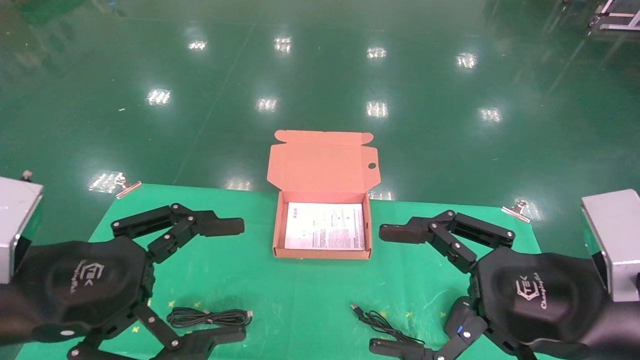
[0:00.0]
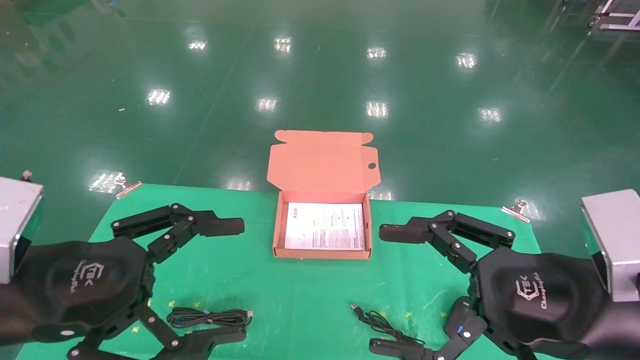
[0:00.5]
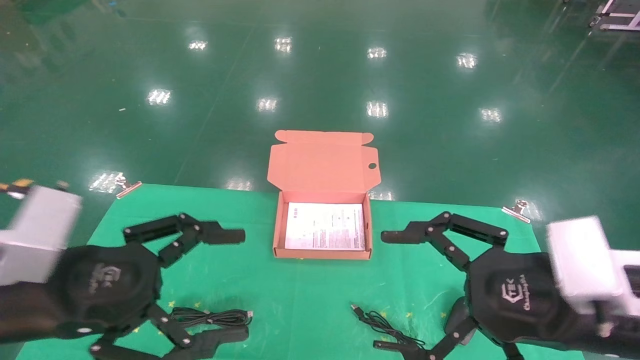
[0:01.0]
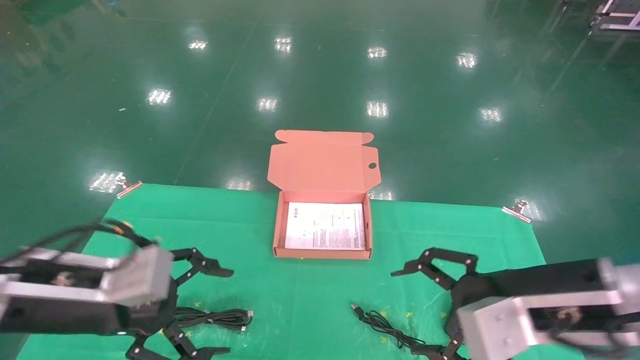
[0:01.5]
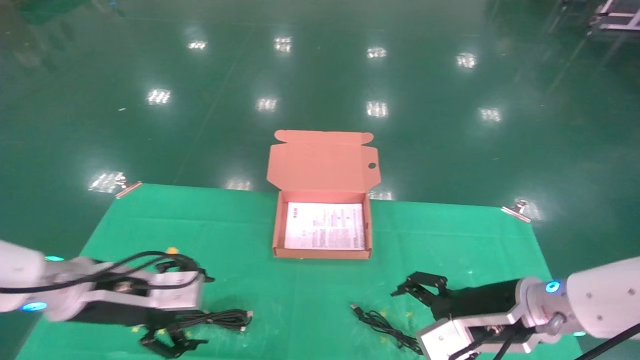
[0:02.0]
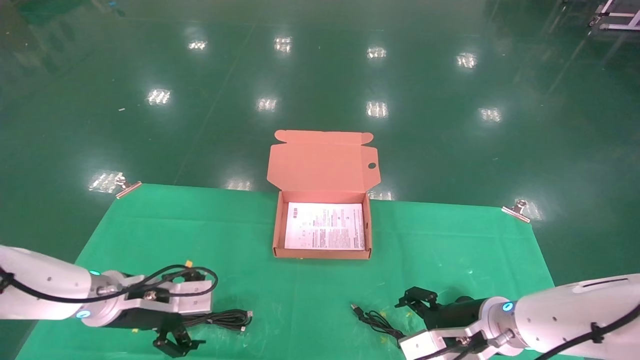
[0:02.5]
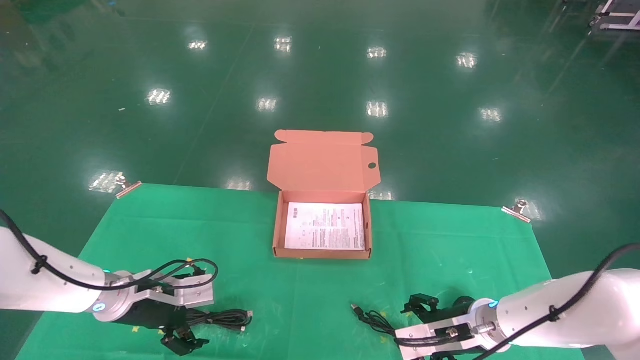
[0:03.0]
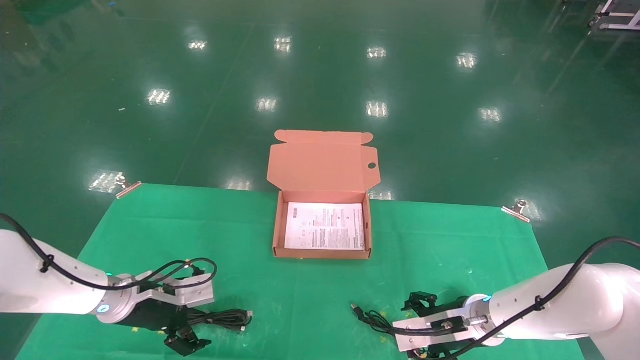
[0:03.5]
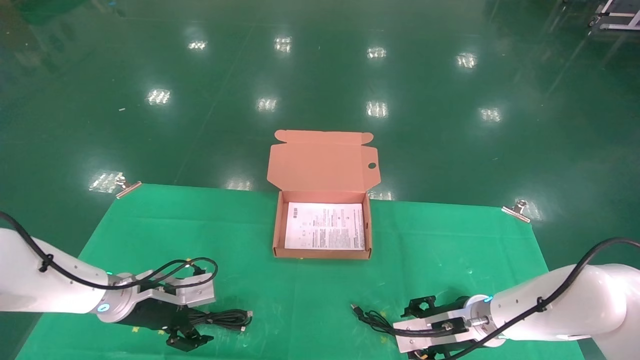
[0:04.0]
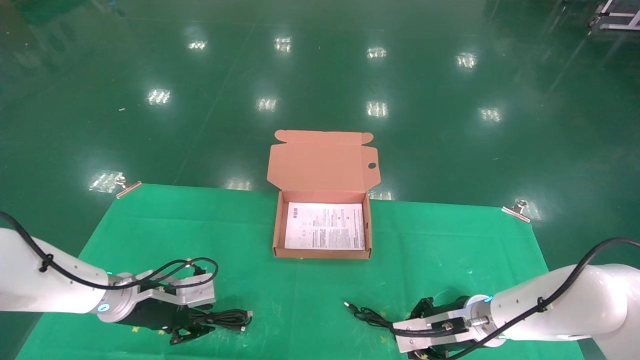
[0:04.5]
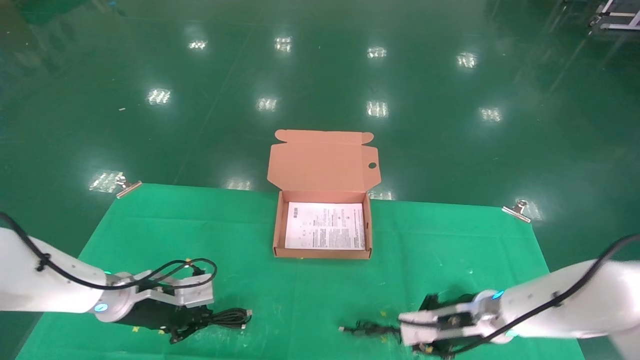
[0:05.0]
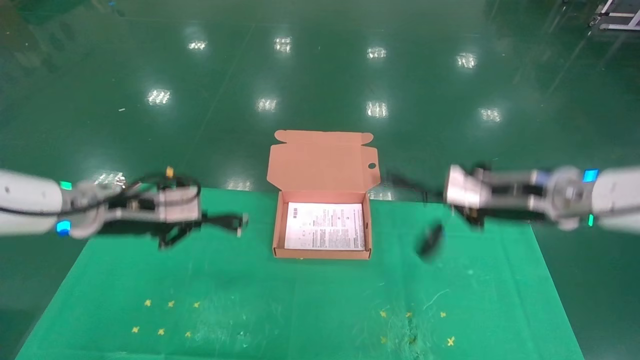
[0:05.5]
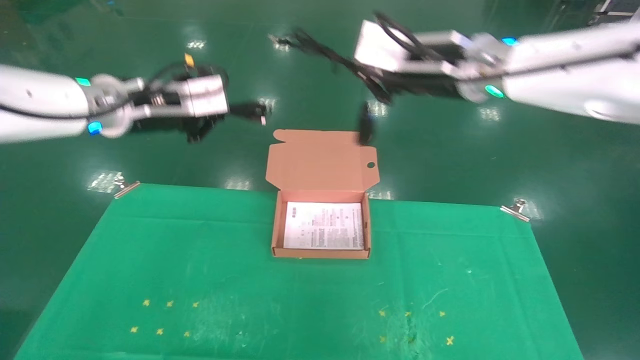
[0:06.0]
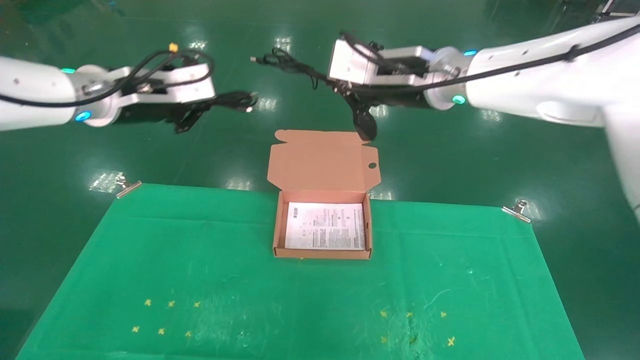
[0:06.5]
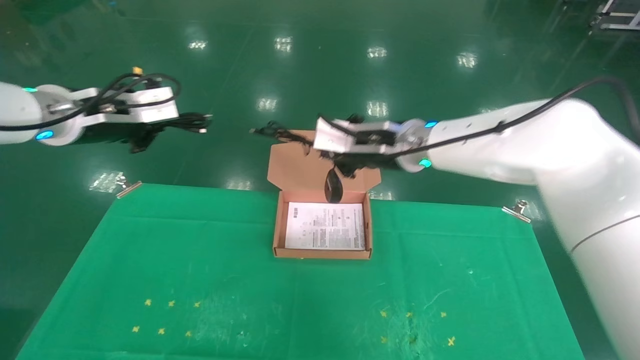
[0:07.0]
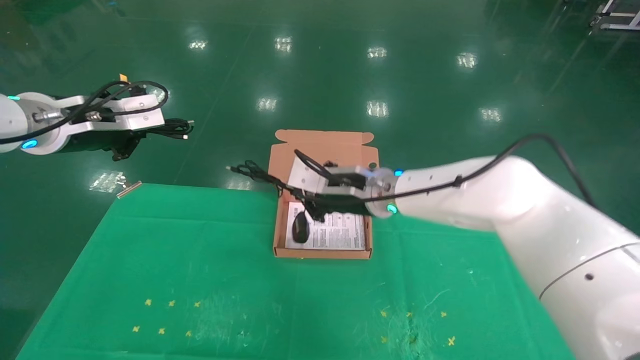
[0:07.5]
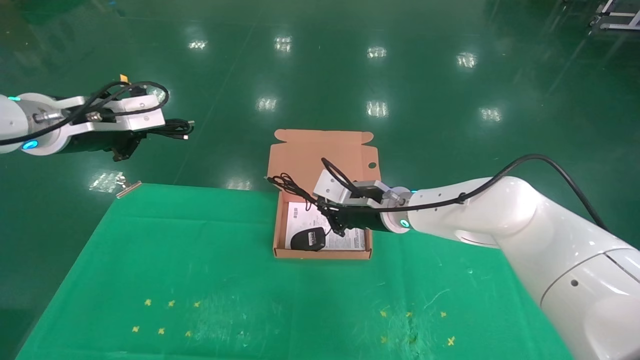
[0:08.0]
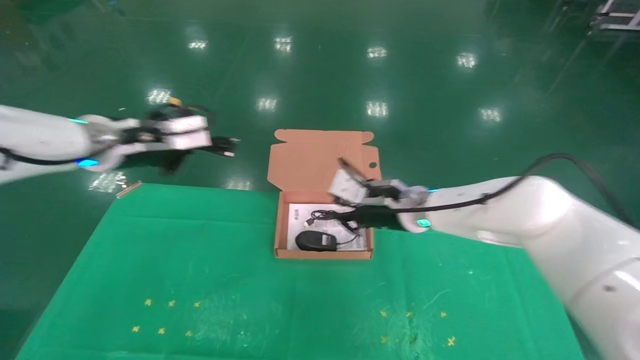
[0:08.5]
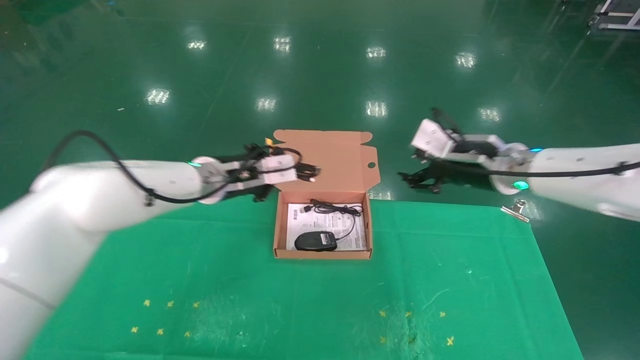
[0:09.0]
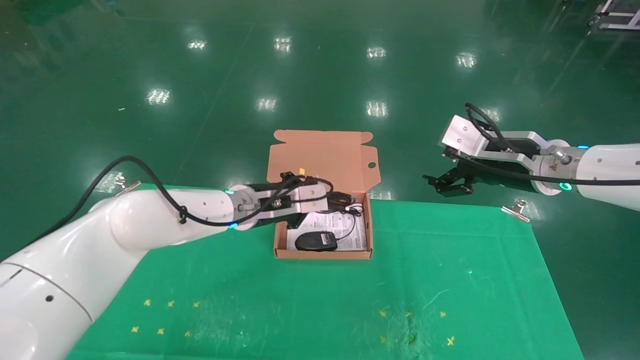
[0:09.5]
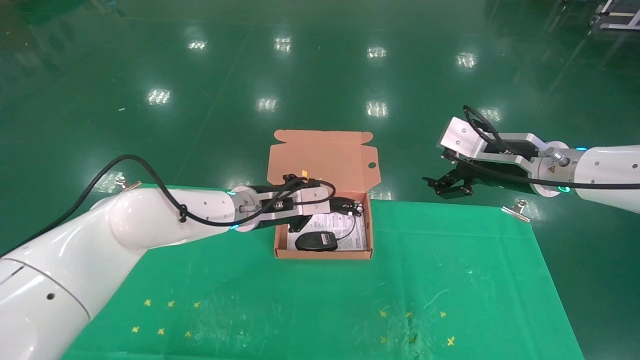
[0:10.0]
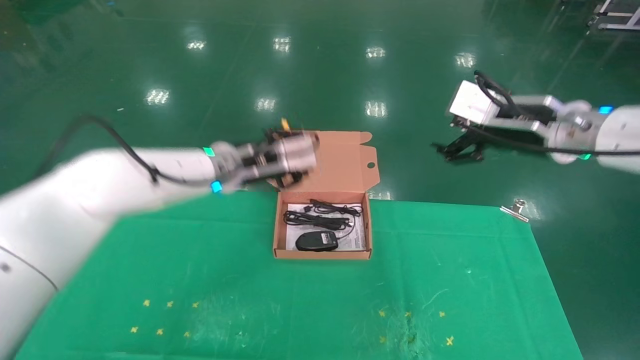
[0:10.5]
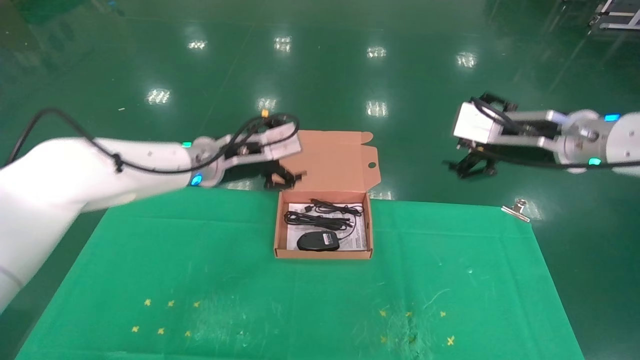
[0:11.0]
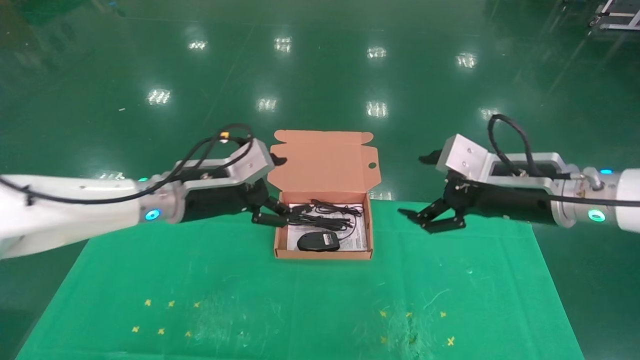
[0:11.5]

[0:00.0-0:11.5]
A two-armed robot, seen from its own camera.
Task of the whole recording: grasp data cable left put into box grasp mouse right put into box.
Step, 0:01.5 to 0:05.0: Grab and pick up both the mouse and power cord from the accessory packaging area at the same time.
Step, 0:05.5 to 0:10.5: Place the mouse and power cord into the box.
0:00.0 to 0:02.0: Both grippers travel together forward and downward, approximately 15 cm.
0:02.0 to 0:04.0: The left gripper heads forward and downward, covering some 10 cm, while the right gripper is displaced downward and forward by roughly 10 cm.
0:04.0 to 0:06.0: Both grippers travel together upward, about 30 cm. The right gripper closes up. The left gripper closes its fingers.
0:06.0 to 0:07.5: The right gripper shifts about 20 cm downward and to the left. The left gripper shifts roughly 5 cm to the left.
0:07.5 to 0:09.5: The left gripper goes some 25 cm to the right, downward and forward. Meanwhile the right gripper travels to the right by roughly 20 cm, and opens up.
0:09.5 to 0:11.5: The right gripper goes some 5 cm backward. Meanwhile the left gripper is displaced to the left and backward by about 10 cm, and opens up.

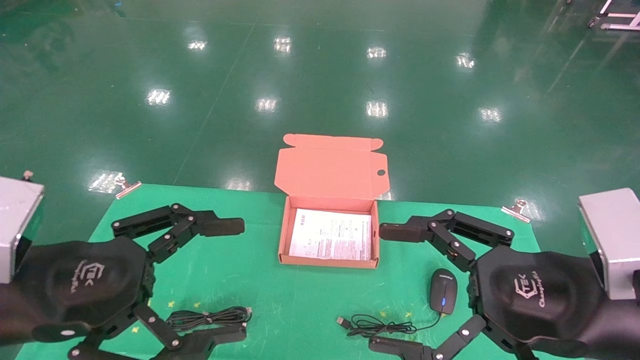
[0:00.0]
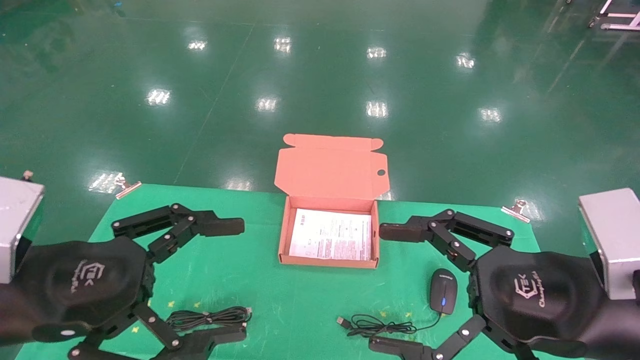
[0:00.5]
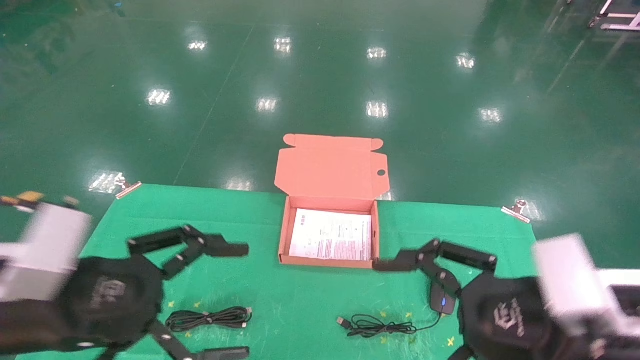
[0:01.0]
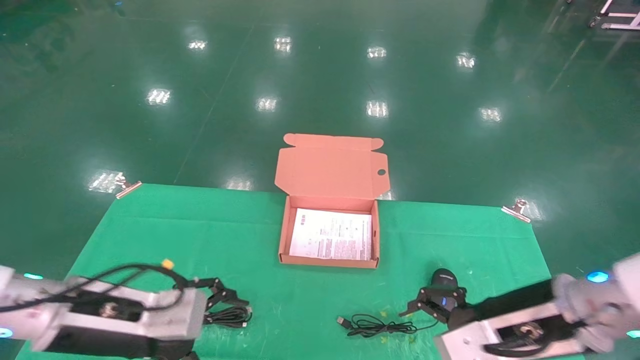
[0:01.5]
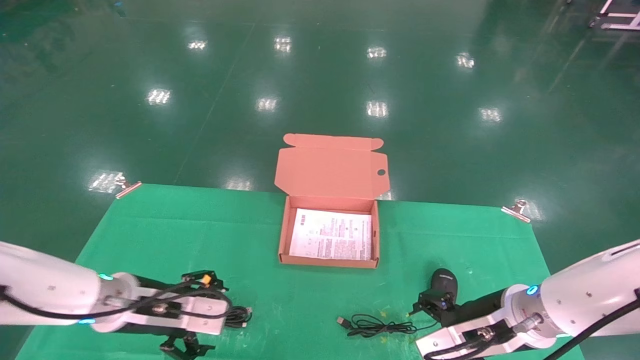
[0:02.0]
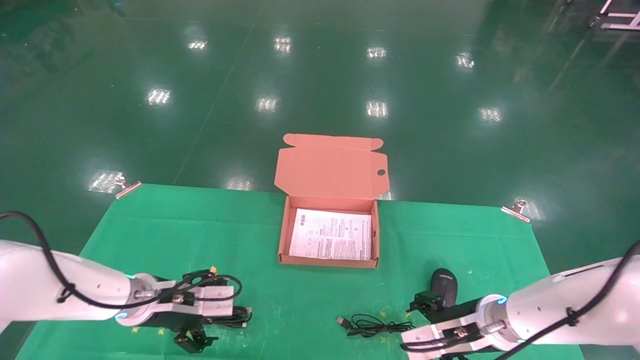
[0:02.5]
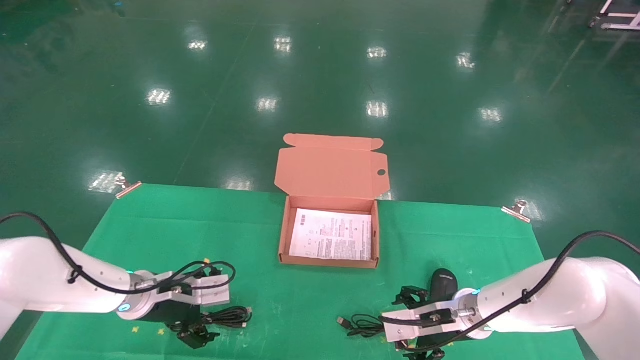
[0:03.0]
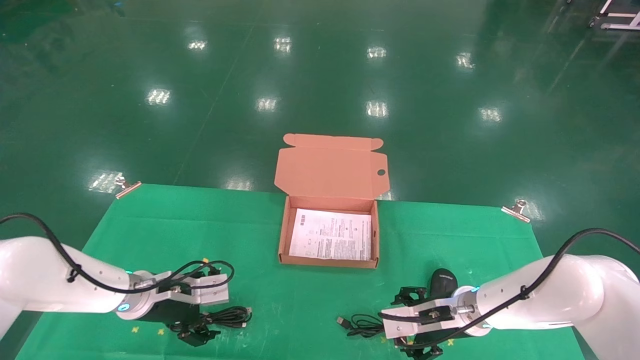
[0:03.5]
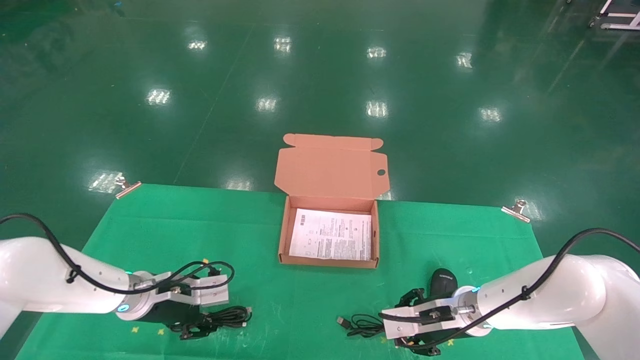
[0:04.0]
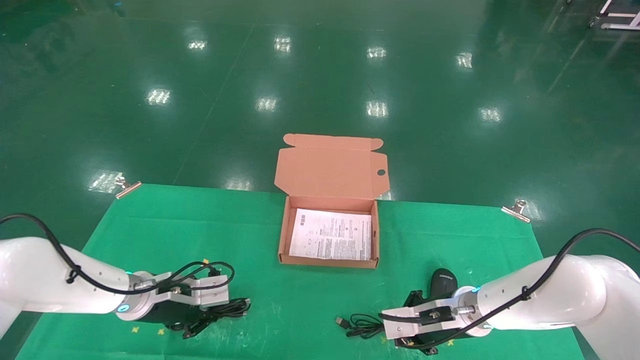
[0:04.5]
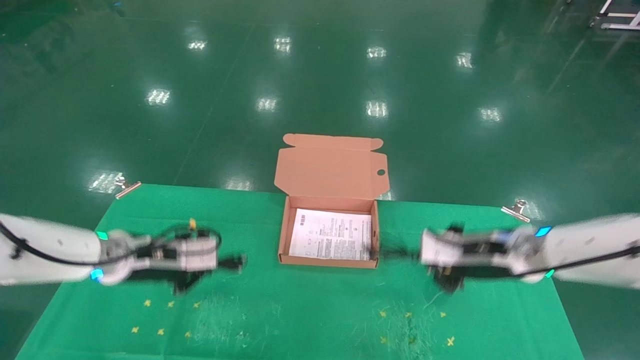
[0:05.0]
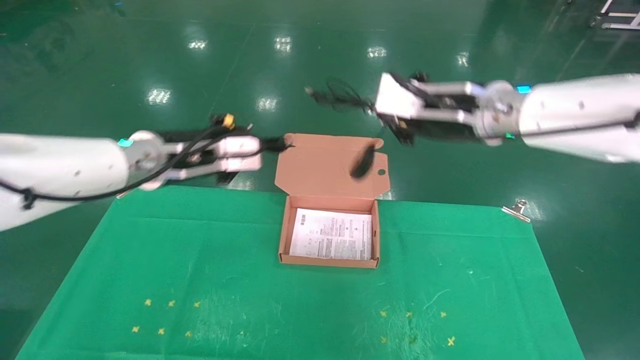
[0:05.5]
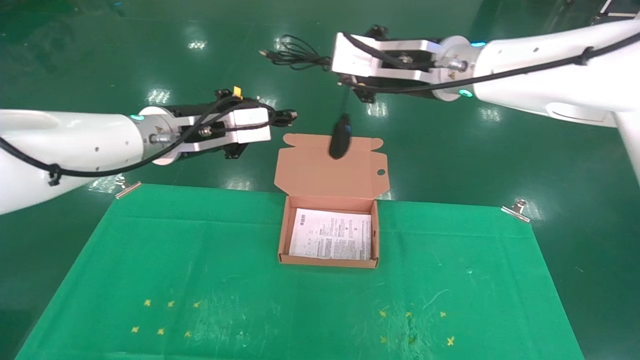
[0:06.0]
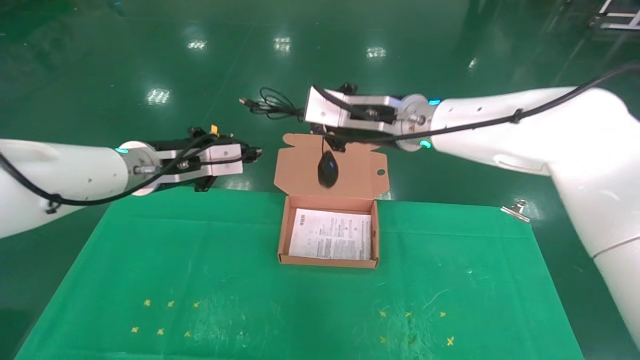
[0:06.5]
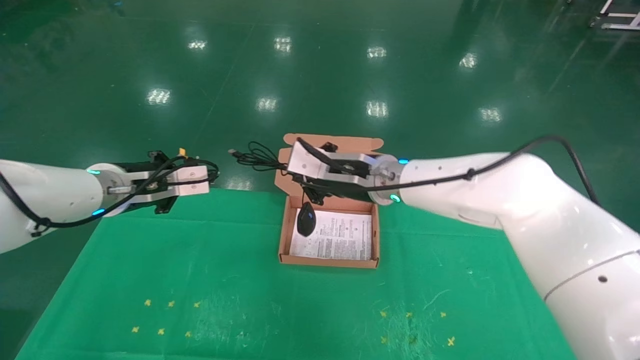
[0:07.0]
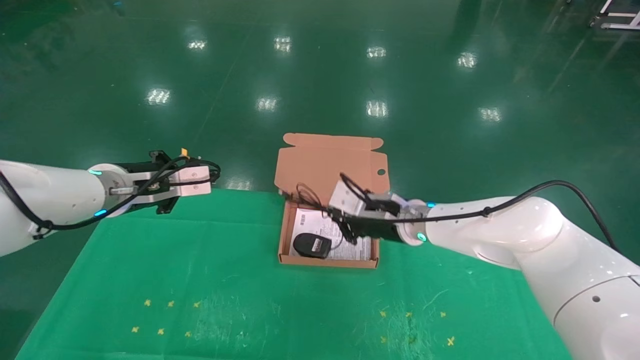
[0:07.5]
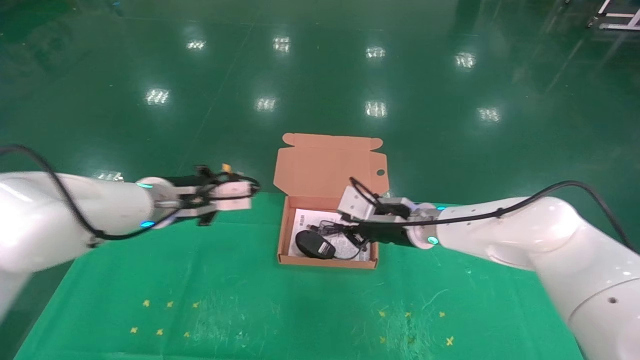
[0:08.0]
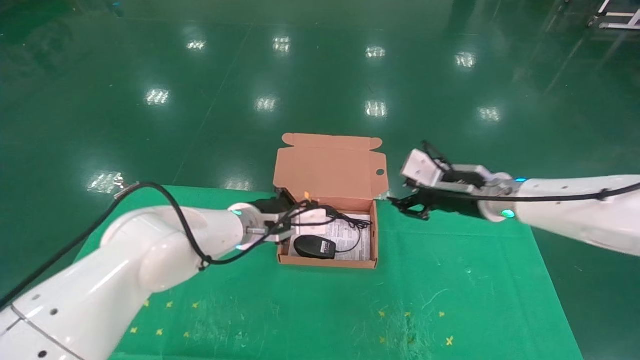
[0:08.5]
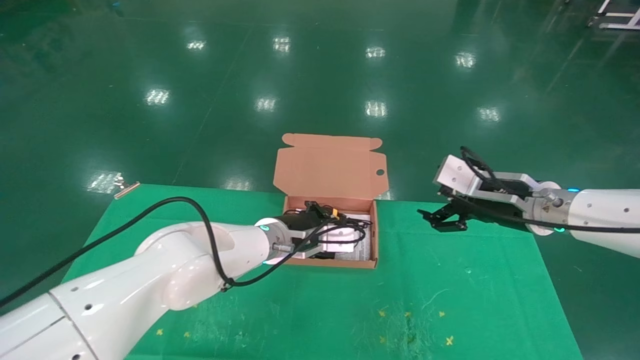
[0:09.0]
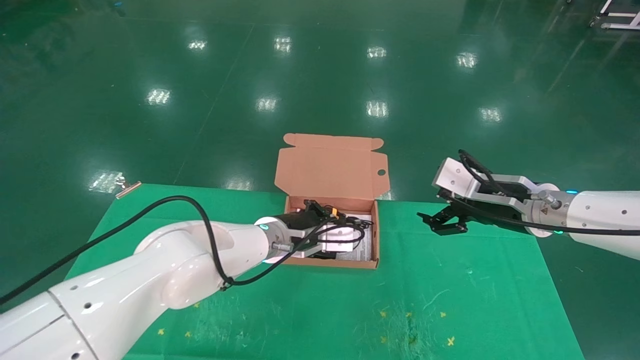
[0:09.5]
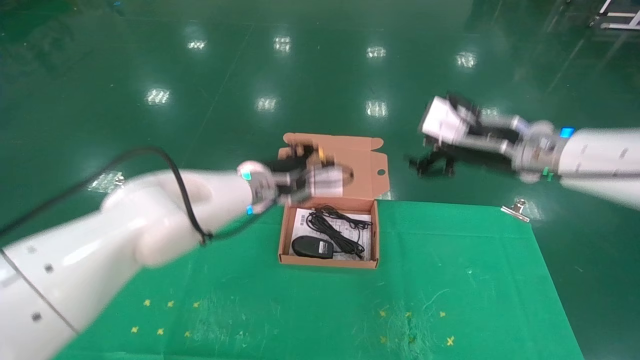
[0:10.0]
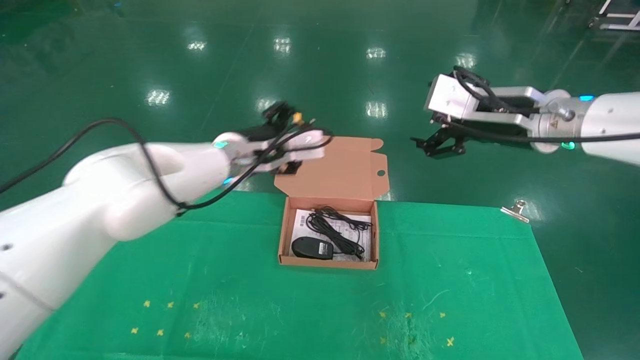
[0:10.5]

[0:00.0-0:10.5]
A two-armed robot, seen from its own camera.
Task of the whole recording: grasp data cable left put into box grasp mouse right put into box.
Step, 0:01.0 to 0:04.5: Grab and pick up both the mouse and power cord from the accessory packaging area at the same time.
Step, 0:05.0 to 0:09.0: Place the mouse and power cord into the box.
0:00.0 to 0:02.0: Both grippers travel together forward and downward, approximately 20 cm.
0:02.0 to 0:04.0: The left gripper heads forward, covering approximately 5 cm, and closes its fingers. The right gripper heads forward and downward, covering about 10 cm, and closes.
0:04.0 to 0:06.5: The left gripper moves upward, some 20 cm, and closes its fingers, while the right gripper is displaced upward and to the left by roughly 30 cm, and closes up.
0:06.5 to 0:08.5: Both grippers move to the right and downward, about 15 cm. The right gripper opens up.
0:08.5 to 0:10.5: The right gripper shifts approximately 10 cm upward and backward, and opens up, while the left gripper goes approximately 10 cm upward, and opens up.
